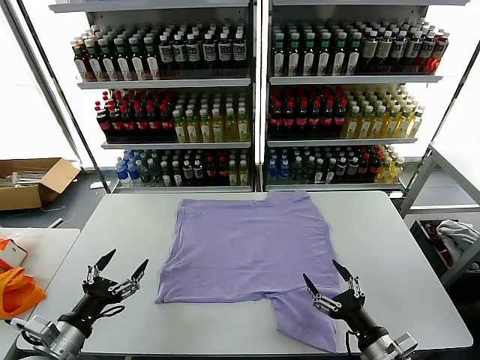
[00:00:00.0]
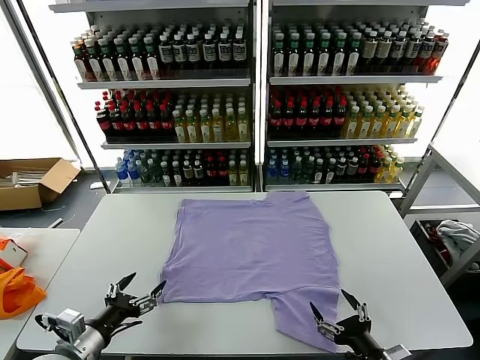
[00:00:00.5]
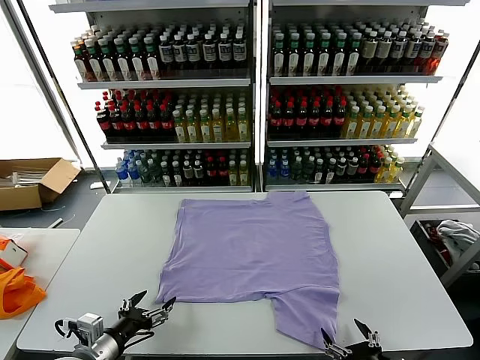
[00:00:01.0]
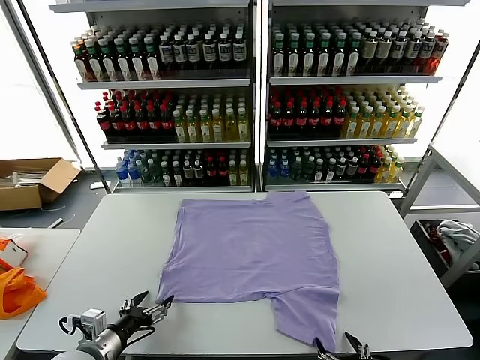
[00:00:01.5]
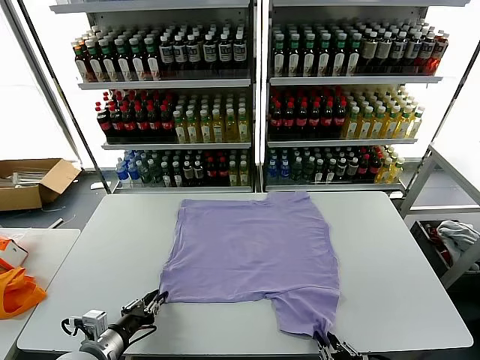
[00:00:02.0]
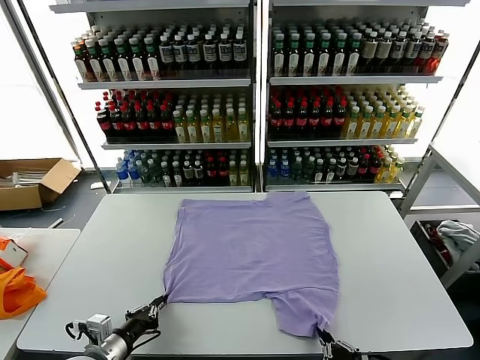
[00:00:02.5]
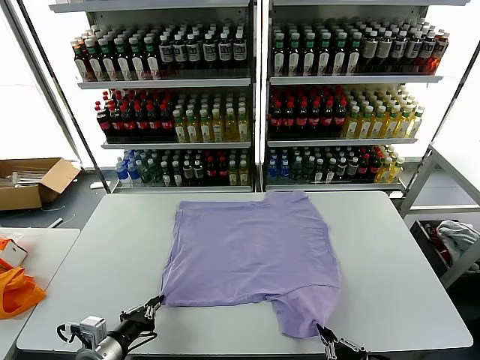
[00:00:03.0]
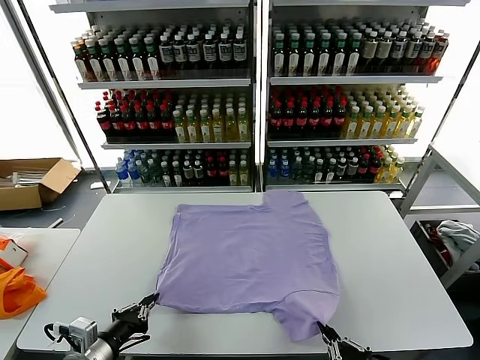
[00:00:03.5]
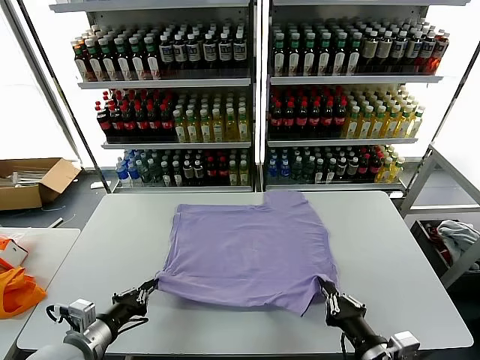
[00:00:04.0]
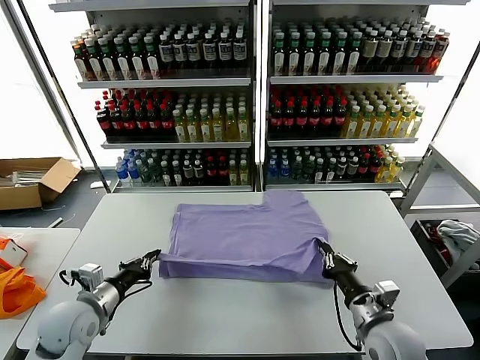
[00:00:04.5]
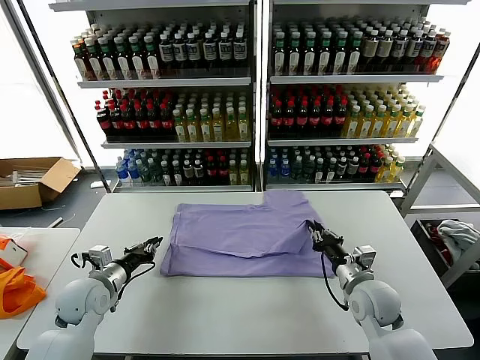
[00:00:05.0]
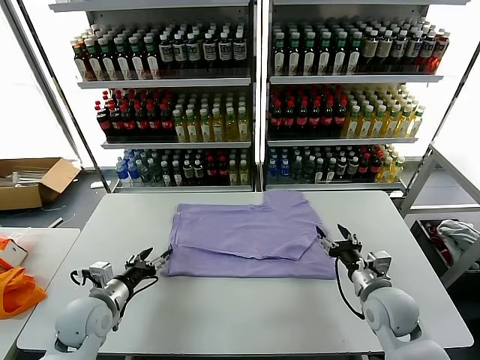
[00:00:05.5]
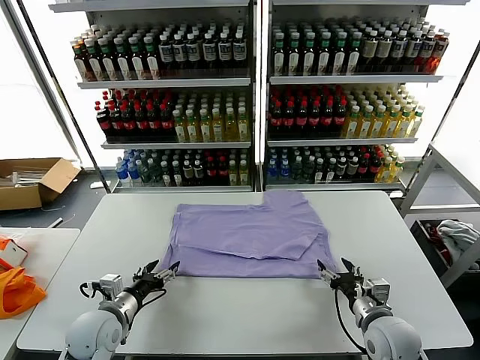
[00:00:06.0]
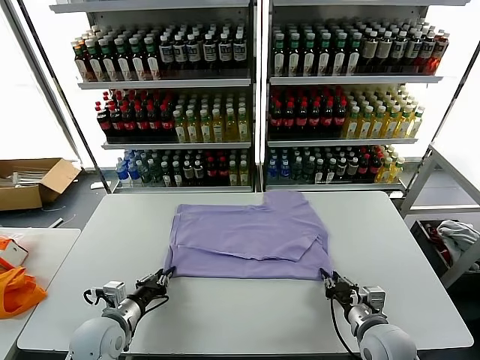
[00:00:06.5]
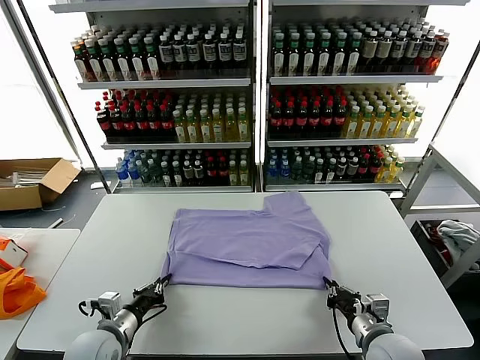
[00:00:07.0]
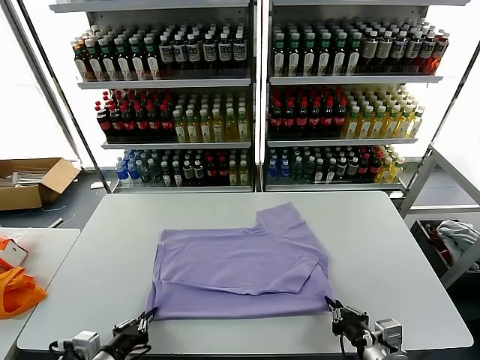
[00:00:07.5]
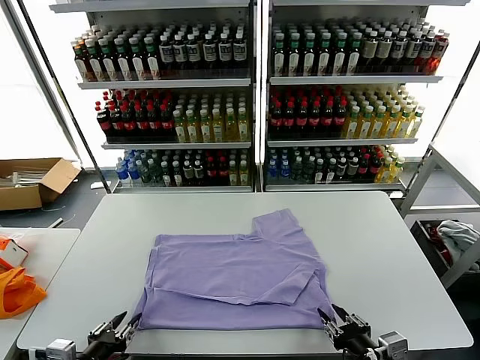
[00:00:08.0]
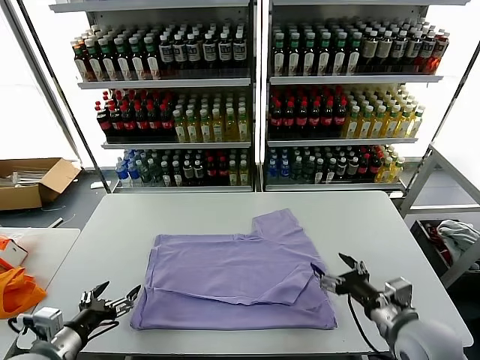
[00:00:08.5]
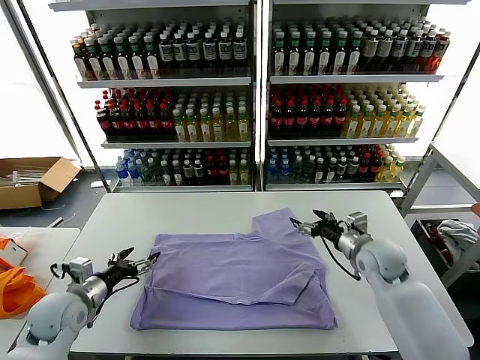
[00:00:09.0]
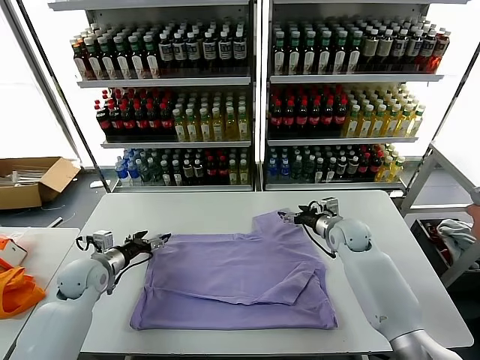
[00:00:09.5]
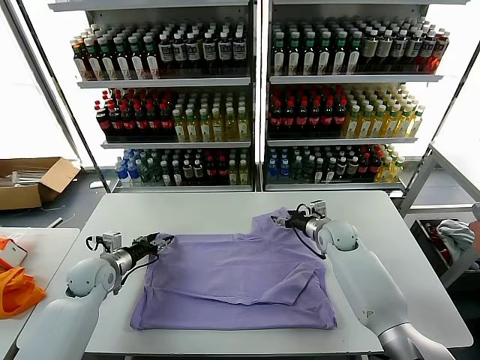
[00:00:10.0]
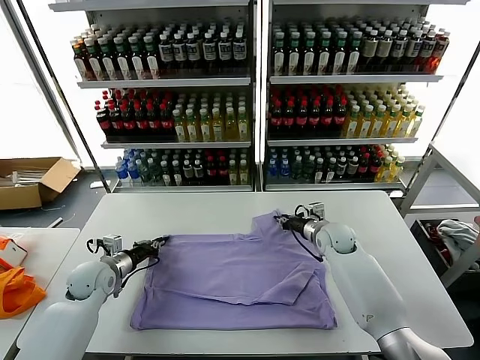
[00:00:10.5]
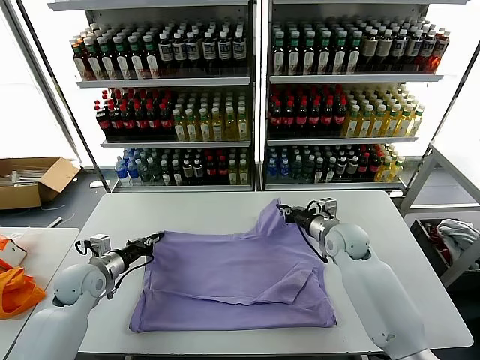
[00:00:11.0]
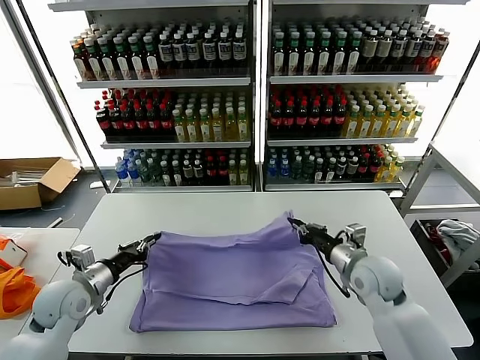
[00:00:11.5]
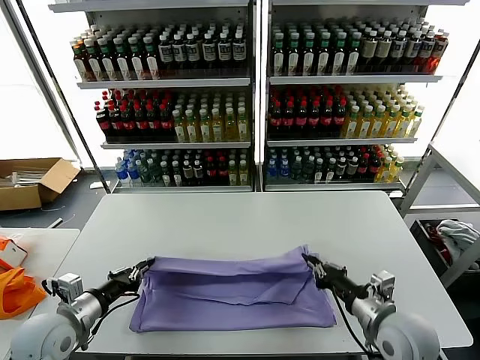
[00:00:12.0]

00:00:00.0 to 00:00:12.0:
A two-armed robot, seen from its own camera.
Task of the whole recording: fold and organize the clothes.
Step, 00:00:00.0 to 00:00:02.5: use both grippers simultaneously to clamp the lower edge of the clothing fabric.
Step, 00:00:03.0 to 00:00:05.0: use both grippers to drag the lower edge of the fabric forward and fold it over the upper edge.
Step, 00:00:05.5 to 00:00:08.0: Drag the clothes downward with both gripper.
Step, 00:00:08.5 to 00:00:10.5: use both grippers simultaneously to clamp the upper edge of the clothing fabric.
00:00:02.0 to 00:00:04.0: The right gripper moves forward, some 5 cm; the left gripper travels upward by about 5 cm.
00:00:04.0 to 00:00:06.0: The two grippers go about 10 cm forward and downward. The left gripper opens its fingers. Meanwhile the right gripper opens up.
00:00:06.0 to 00:00:08.0: The left gripper moves backward, approximately 15 cm, and closes, then reopens; the right gripper moves backward and upward, approximately 15 cm, and closes, then opens again.
00:00:08.0 to 00:00:10.0: Both grippers move forward, roughly 35 cm. The left gripper opens and closes again.
00:00:10.0 to 00:00:12.0: The right gripper shifts about 30 cm backward, and closes up. Meanwhile the left gripper travels backward by about 15 cm, and closes.

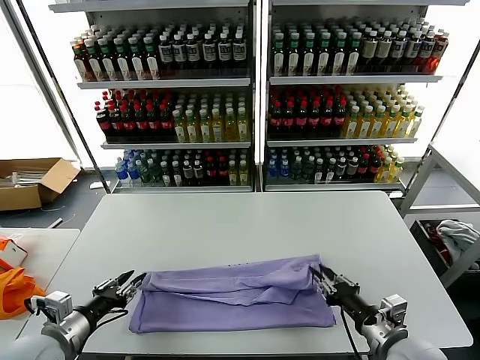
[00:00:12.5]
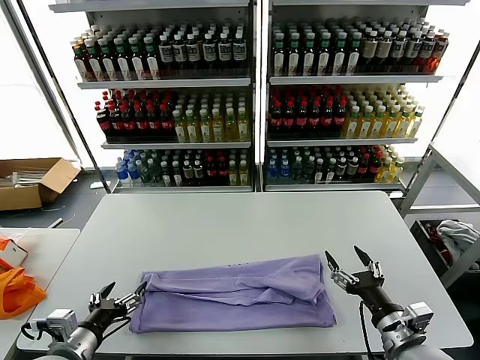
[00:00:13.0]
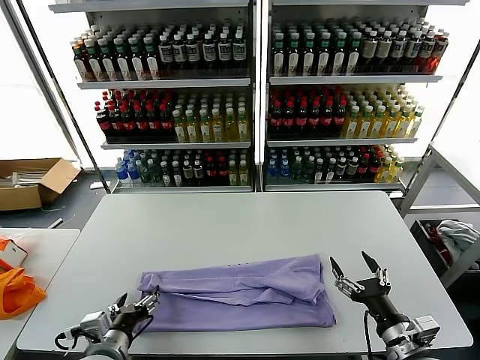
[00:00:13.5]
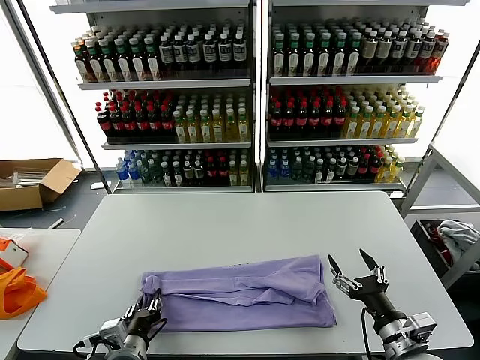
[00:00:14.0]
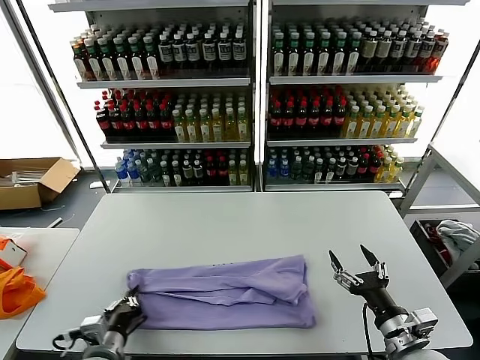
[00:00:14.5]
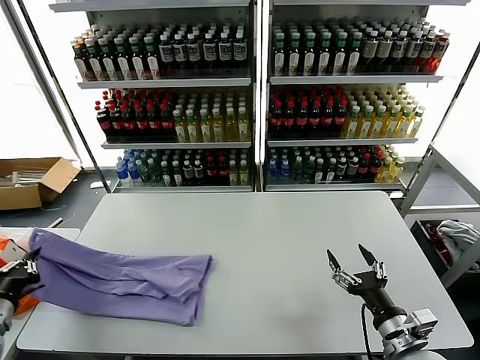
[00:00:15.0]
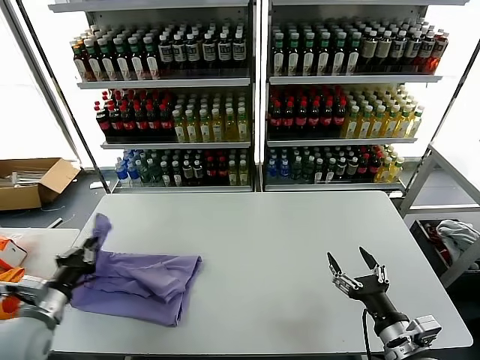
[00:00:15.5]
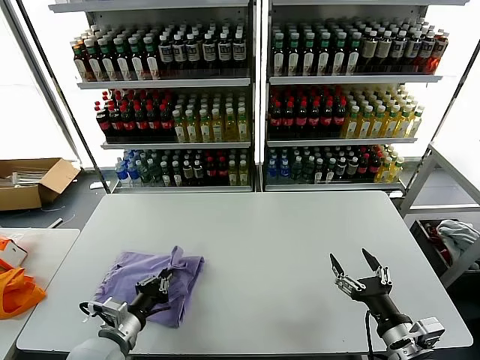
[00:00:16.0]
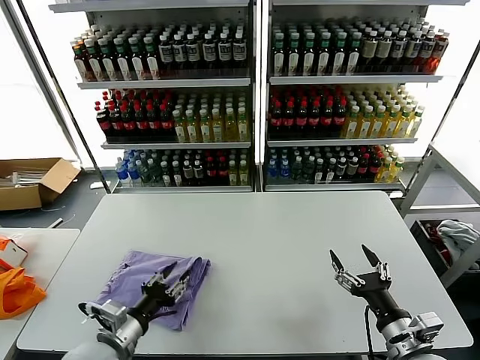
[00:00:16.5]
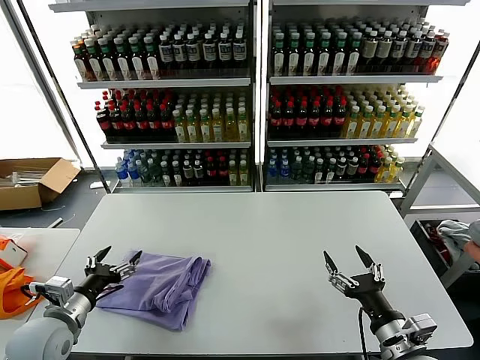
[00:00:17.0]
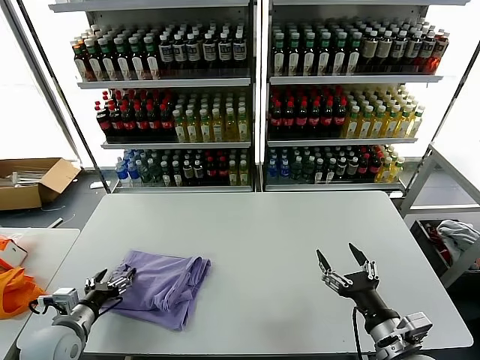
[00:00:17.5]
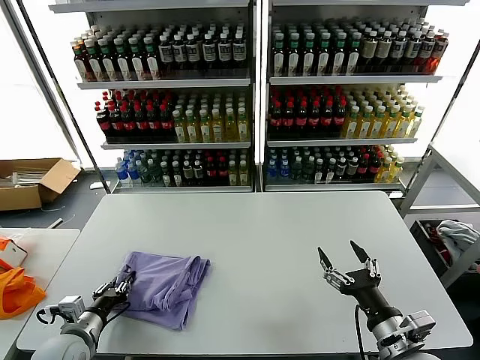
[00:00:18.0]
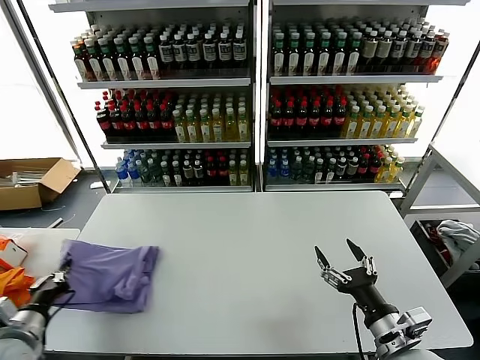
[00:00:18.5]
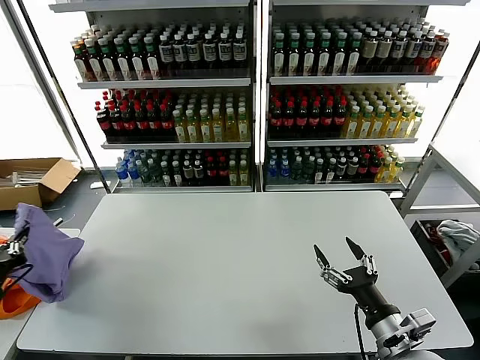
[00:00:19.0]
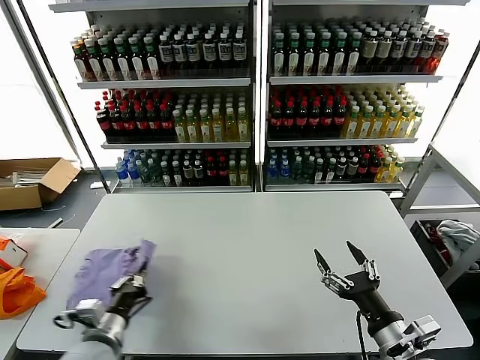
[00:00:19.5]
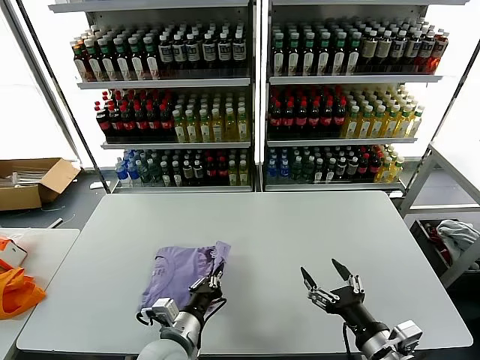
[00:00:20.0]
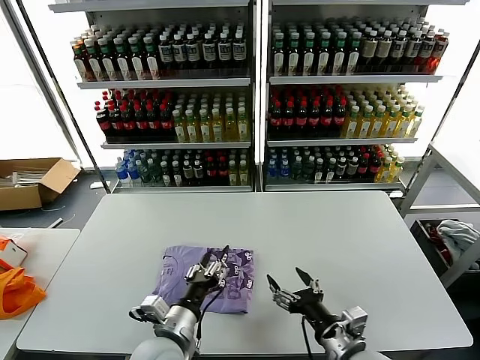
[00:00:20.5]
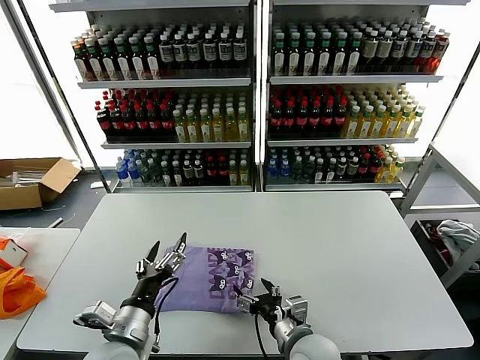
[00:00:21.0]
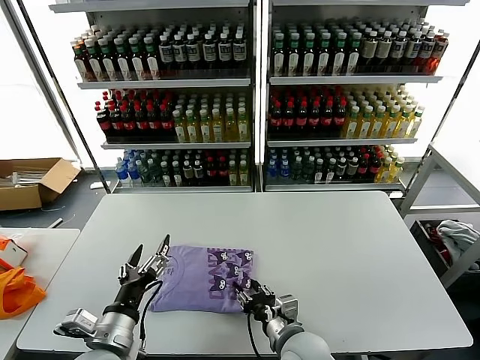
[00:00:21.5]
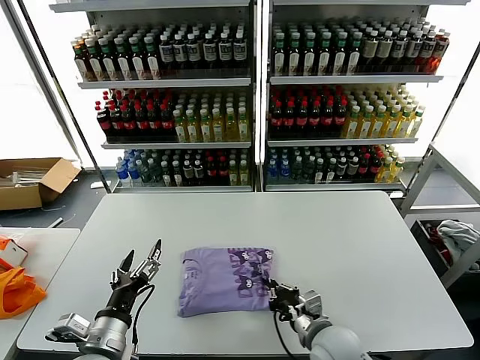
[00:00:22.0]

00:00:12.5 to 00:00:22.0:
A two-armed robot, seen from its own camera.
Task of the whole recording: fold and organize the clothes.
Step, 00:00:13.0 to 00:00:14.0: use the left gripper to clamp the left edge of the fabric.
Step, 00:00:14.5 to 00:00:16.5: use the left gripper to drag the left edge of the fabric to the left and folds it over the right edge.
Step, 00:00:17.0 to 00:00:20.0: Flip the folded clothes over with left gripper.
00:00:12.5 to 00:00:14.5: The right gripper opens; the left gripper goes roughly 10 cm to the right and downward, and closes.
00:00:14.5 to 00:00:16.5: The left gripper reaches approximately 20 cm to the left, then returns, and opens up.
00:00:16.5 to 00:00:18.0: The left gripper moves to the left and downward, about 10 cm, and opens and closes again.
00:00:18.0 to 00:00:20.0: The left gripper is displaced to the right by roughly 20 cm, and closes its fingers.
00:00:20.0 to 00:00:22.0: The right gripper heads to the left, forward and downward, covering roughly 15 cm, and closes its fingers; the left gripper is displaced to the left and upward by about 10 cm, and opens up.

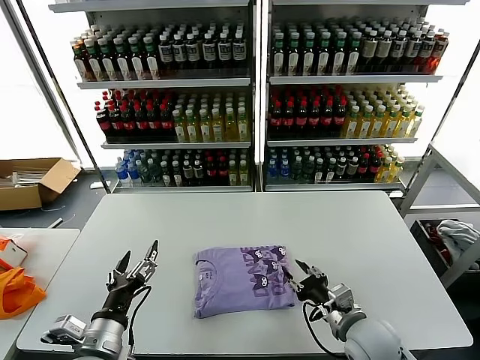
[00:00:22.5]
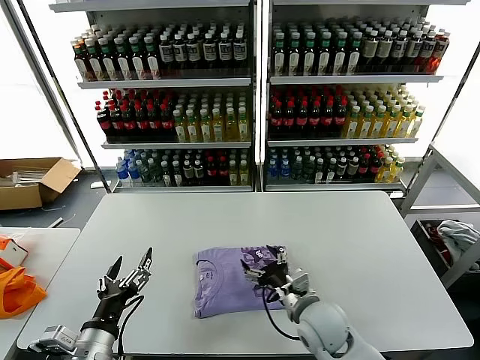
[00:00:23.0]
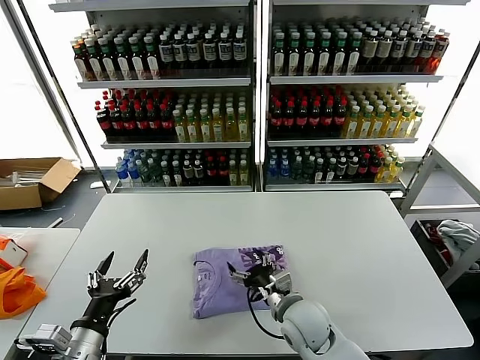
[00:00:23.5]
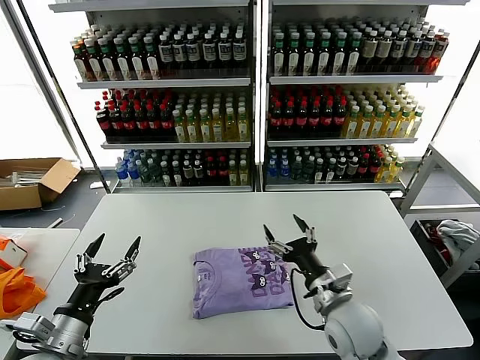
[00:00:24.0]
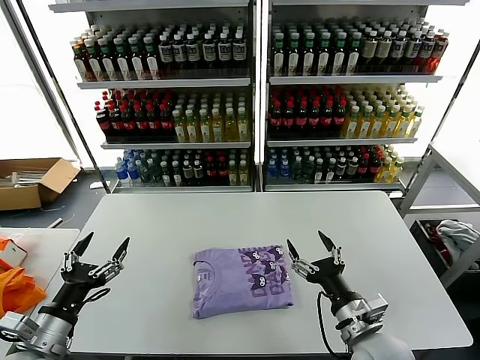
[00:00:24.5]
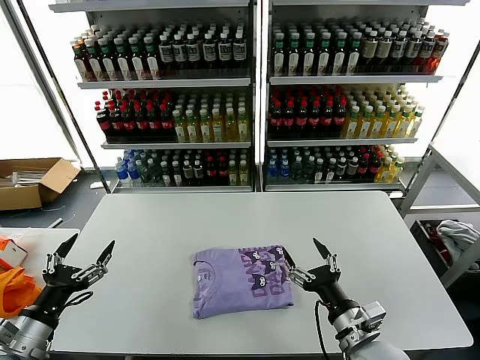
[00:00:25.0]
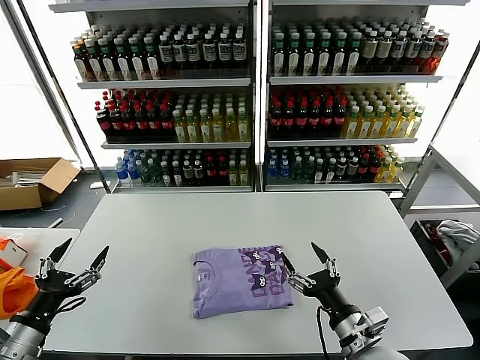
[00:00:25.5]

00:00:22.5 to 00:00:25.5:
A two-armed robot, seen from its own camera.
Task of the whole recording: fold and organize the clothes.
00:00:22.5 to 00:00:24.0: The right gripper opens up, while the left gripper is displaced to the left by some 5 cm.
00:00:24.0 to 00:00:25.5: The left gripper shifts approximately 10 cm to the left, while the right gripper travels backward by roughly 10 cm.
